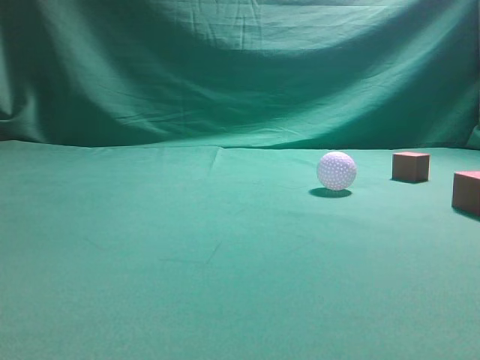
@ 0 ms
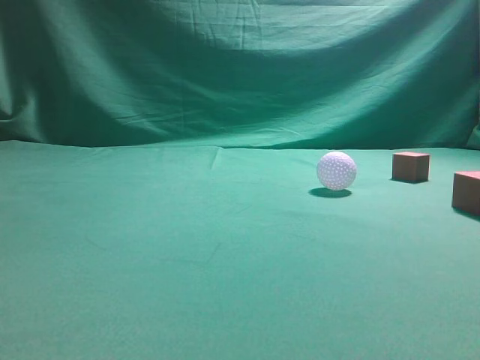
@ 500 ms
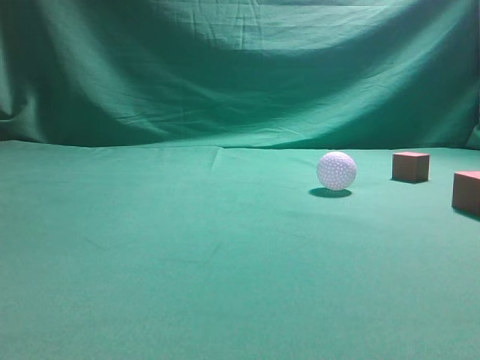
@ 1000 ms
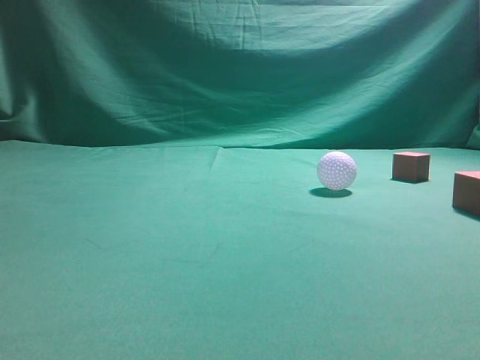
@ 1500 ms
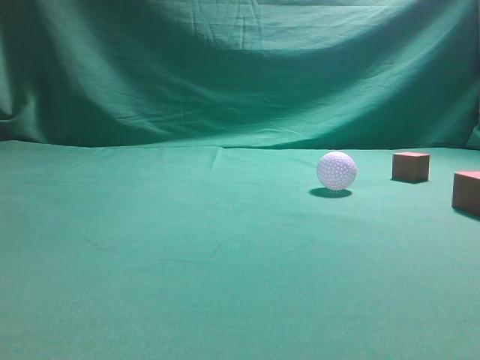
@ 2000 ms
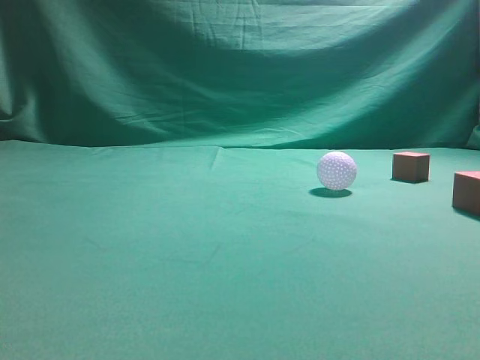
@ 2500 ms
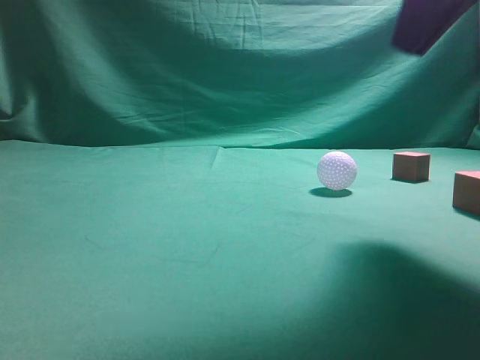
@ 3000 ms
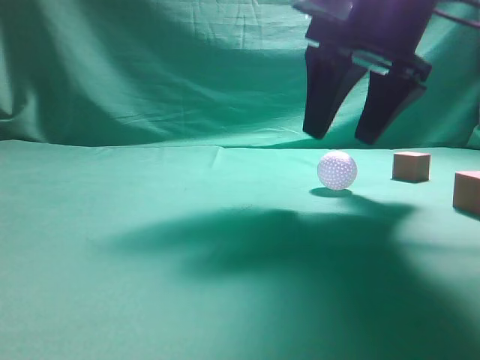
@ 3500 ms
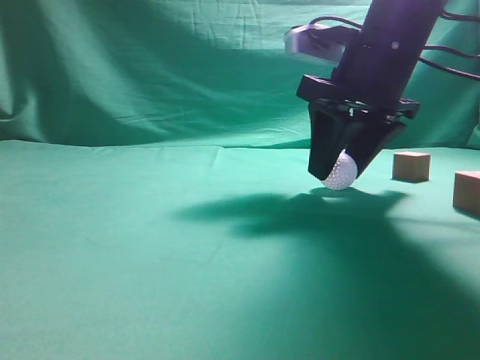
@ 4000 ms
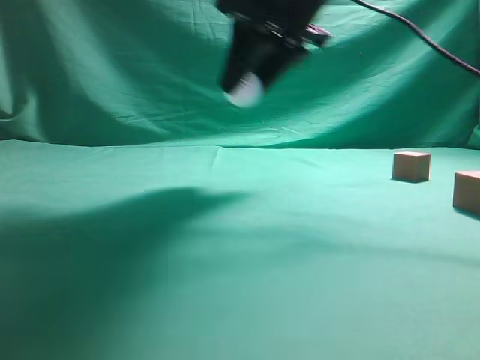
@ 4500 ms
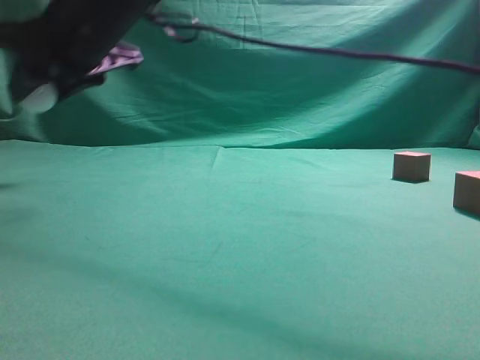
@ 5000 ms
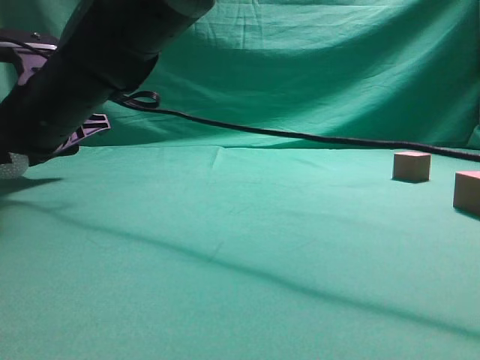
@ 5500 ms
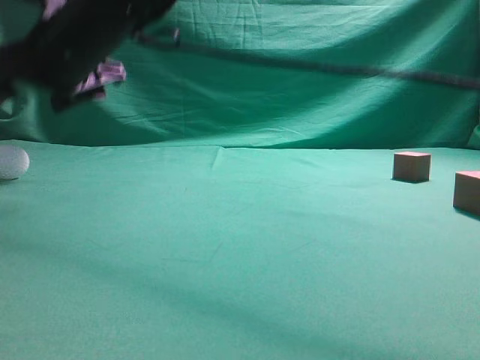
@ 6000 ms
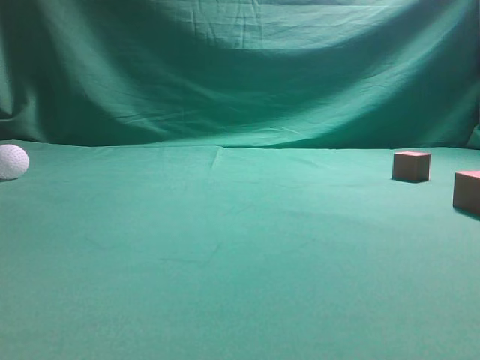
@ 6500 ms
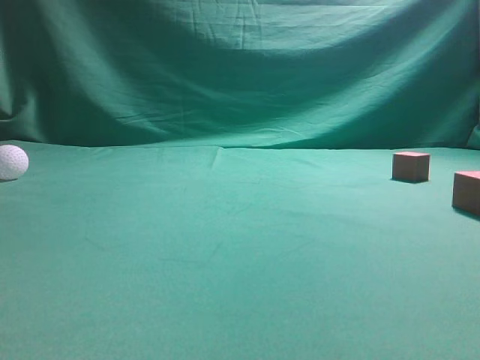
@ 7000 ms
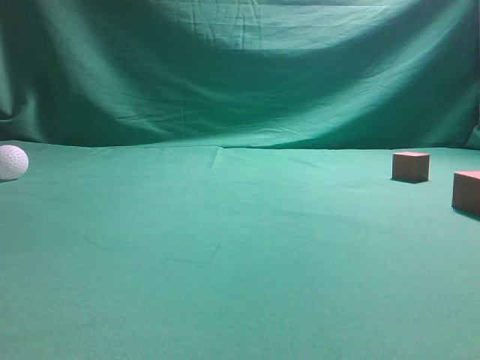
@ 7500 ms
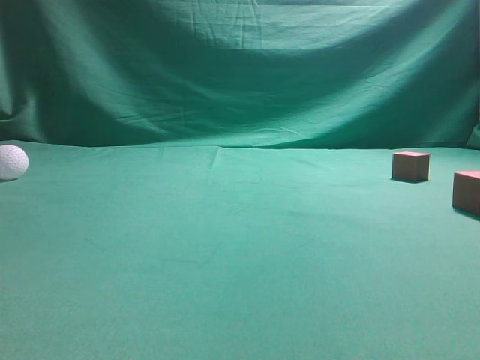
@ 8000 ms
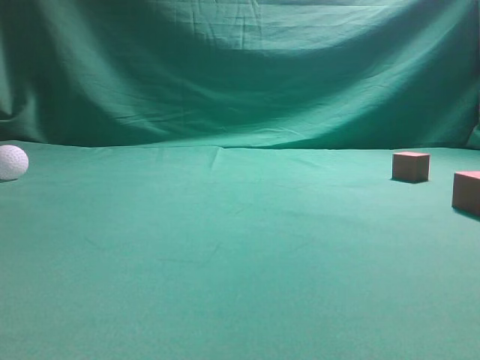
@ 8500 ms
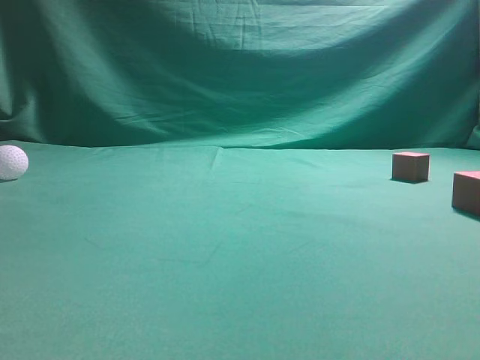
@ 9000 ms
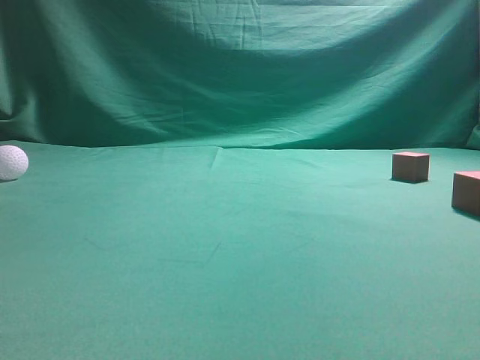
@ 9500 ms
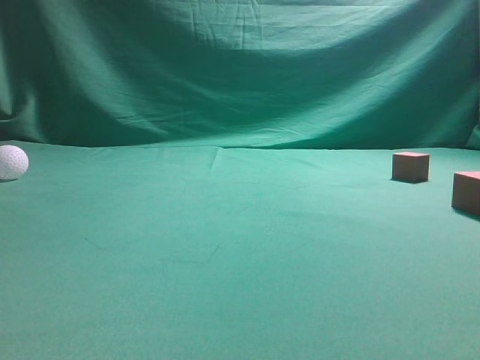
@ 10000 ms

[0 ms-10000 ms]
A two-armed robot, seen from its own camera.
Step, 0 ms to 4000 ms: Grasp the spherical object on the right side.
2000 ms to 4000 ms: The right gripper is displaced forward, to the left and downward by roughly 35 cm, and opens up.
4000 ms to 6000 ms: The right gripper moves to the left, approximately 30 cm.
6000 ms to 8000 ms: The right gripper is displaced to the right and backward by some 50 cm, and closes its fingers.
